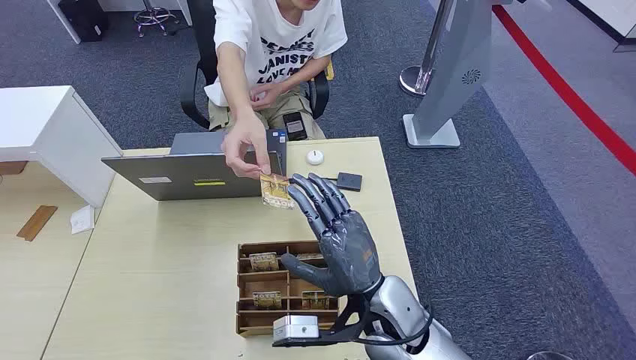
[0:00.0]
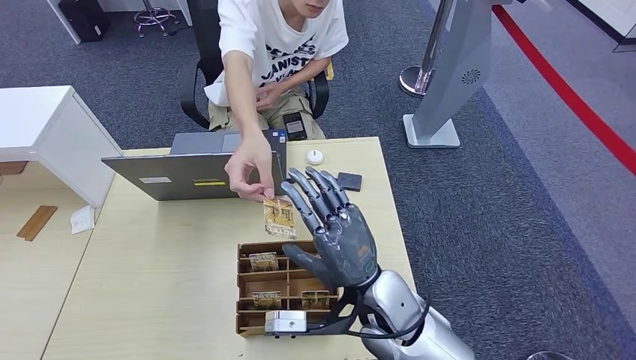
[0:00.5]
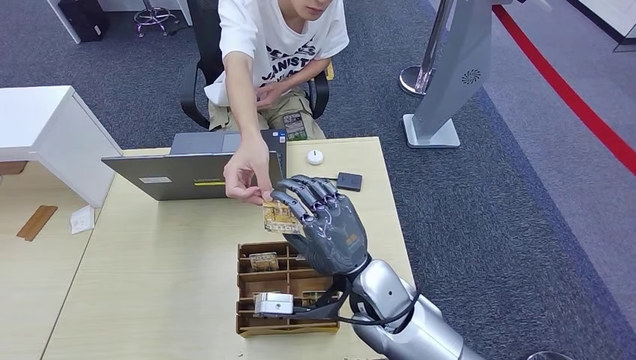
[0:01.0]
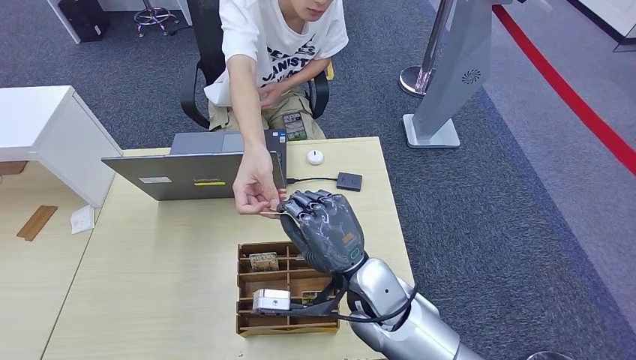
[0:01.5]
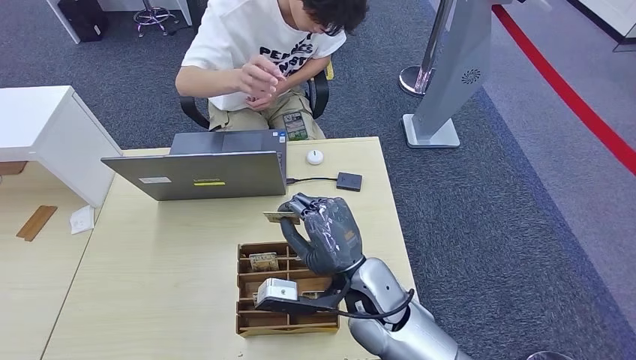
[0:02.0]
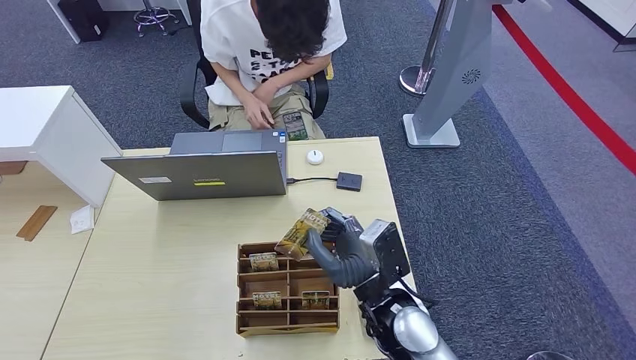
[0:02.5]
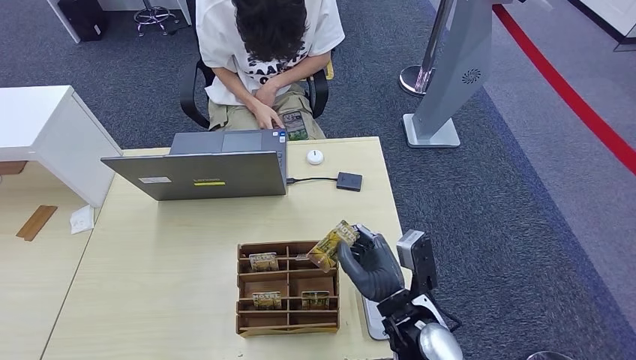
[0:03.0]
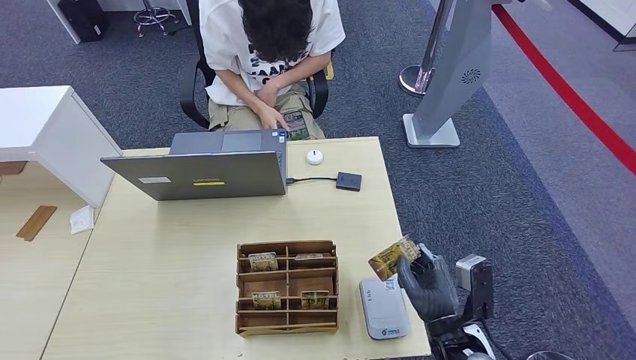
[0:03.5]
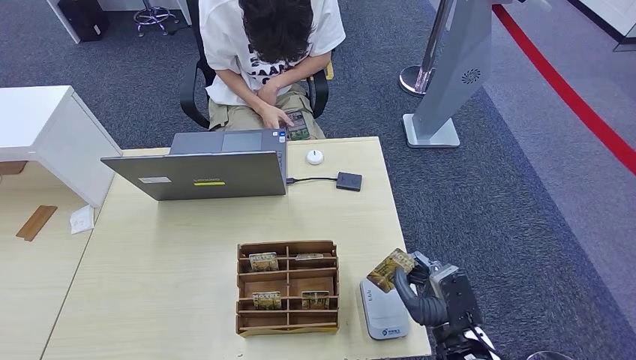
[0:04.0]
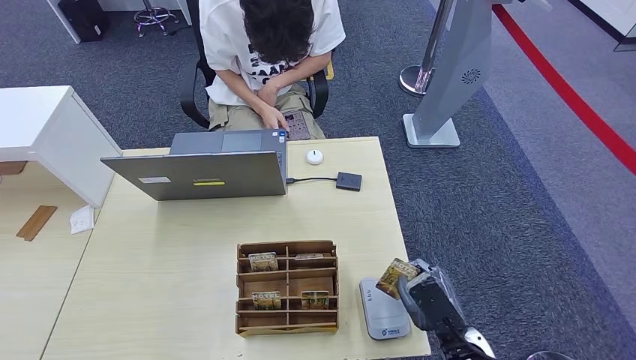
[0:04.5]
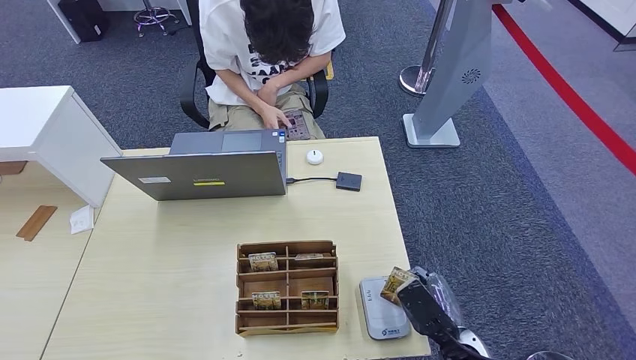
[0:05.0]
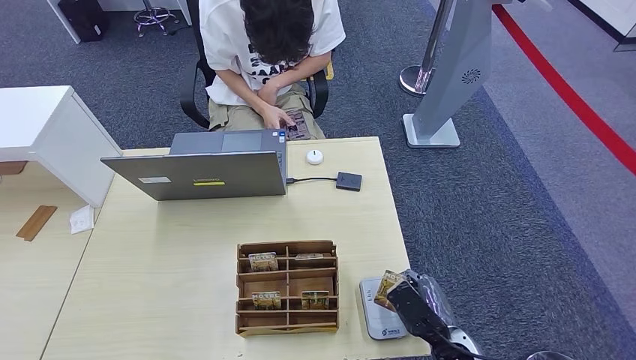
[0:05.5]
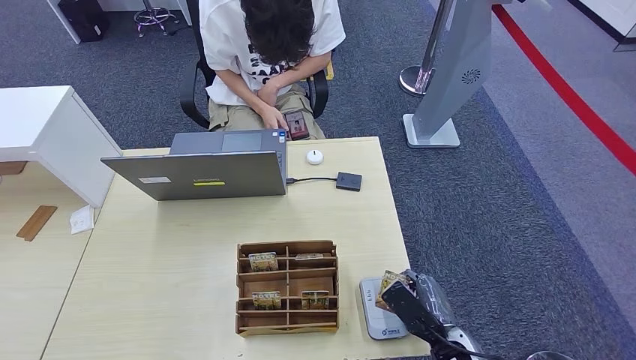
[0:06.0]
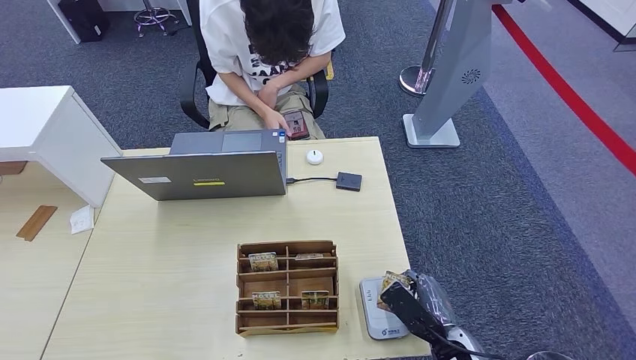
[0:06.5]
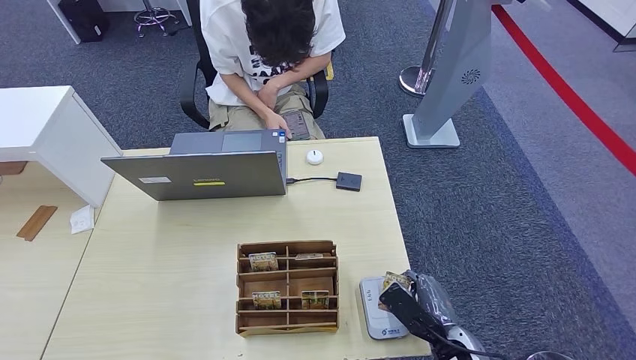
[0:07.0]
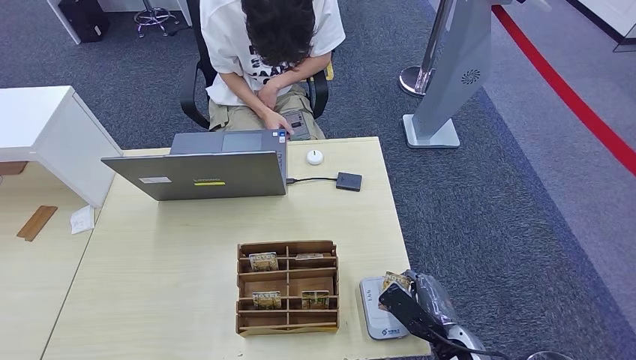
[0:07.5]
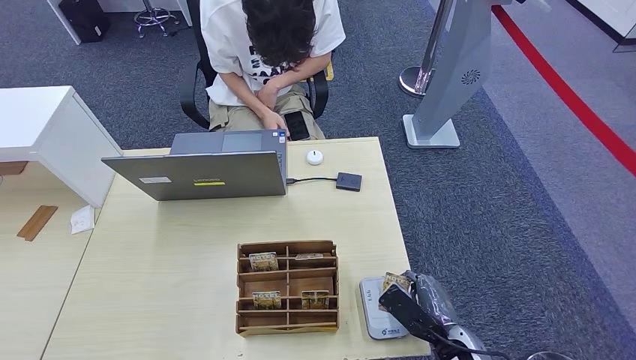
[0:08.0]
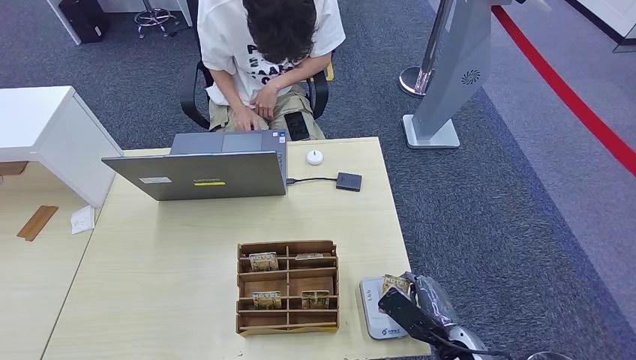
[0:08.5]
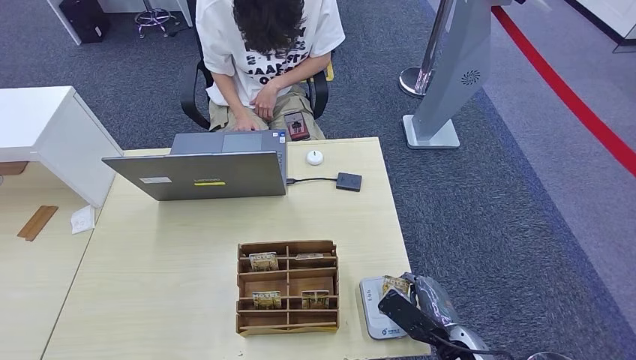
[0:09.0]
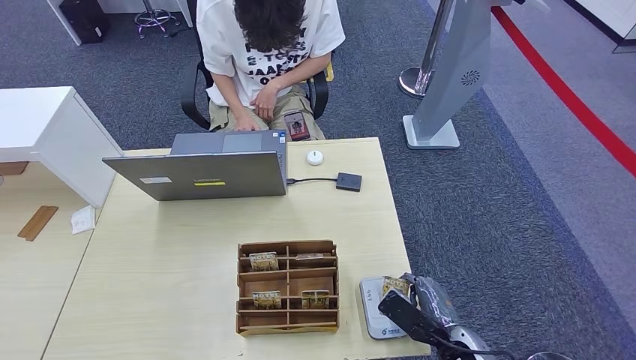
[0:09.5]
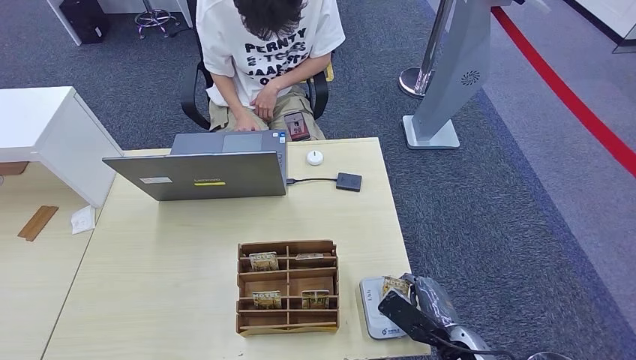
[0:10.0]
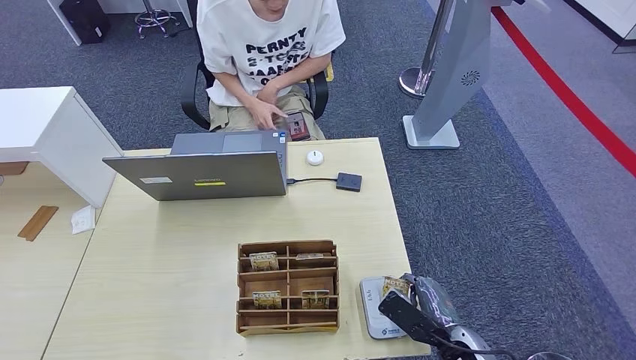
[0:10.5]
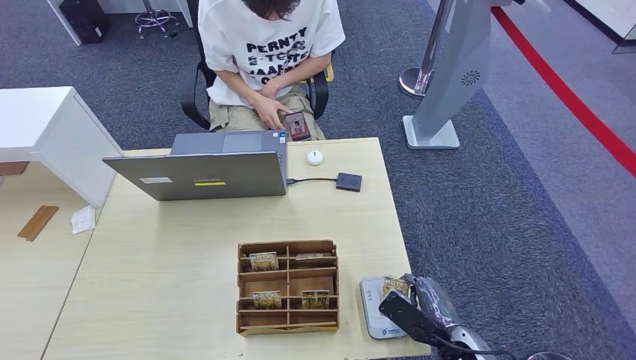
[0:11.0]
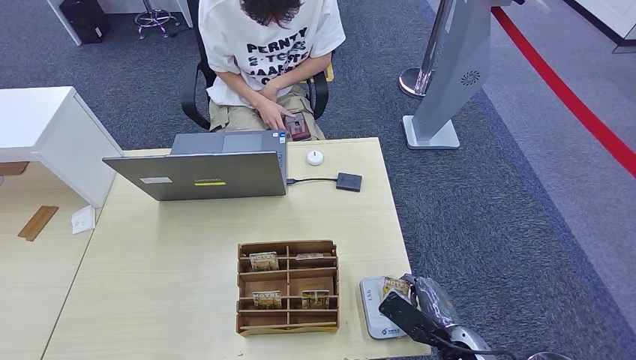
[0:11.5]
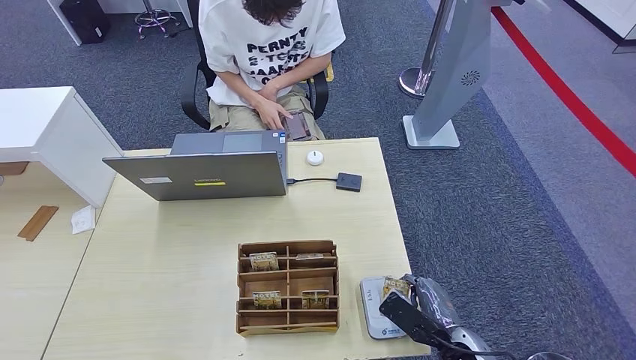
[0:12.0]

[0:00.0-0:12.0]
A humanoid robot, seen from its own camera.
Step, 0:00.0 to 0:01.0: Take the ID card from the person's hand.
Step, 0:01.5 to 0:09.5: Place the ID card on the card reader.
0:02.0 to 0:04.0: The right hand travels to the right, downward and backward by roughly 20 cm.
0:06.0 to 0:08.0: The hands make only small movements.
0:08.0 to 0:10.0: Both hands stay about where they are.
0:10.0 to 0:12.0: Neither hand changes place.

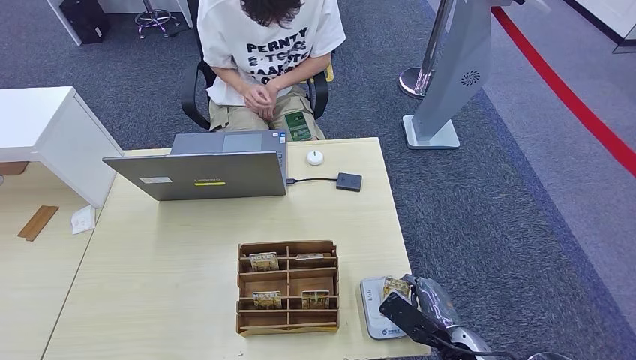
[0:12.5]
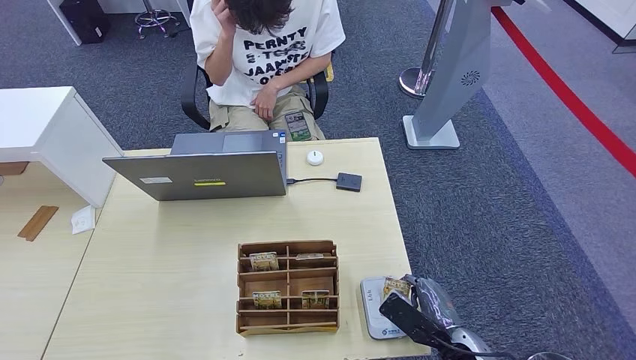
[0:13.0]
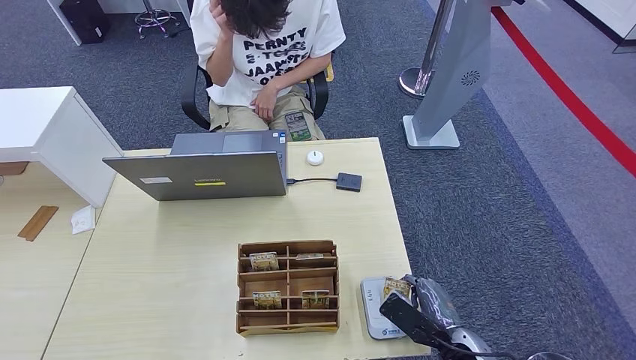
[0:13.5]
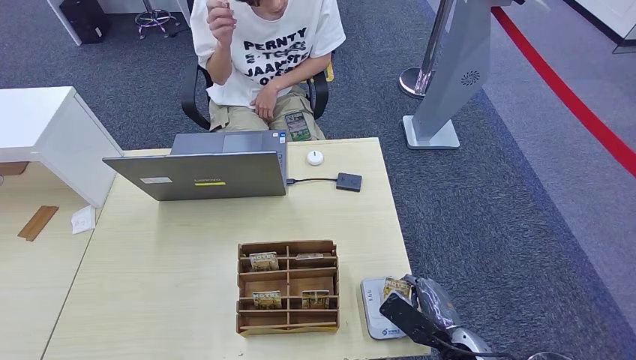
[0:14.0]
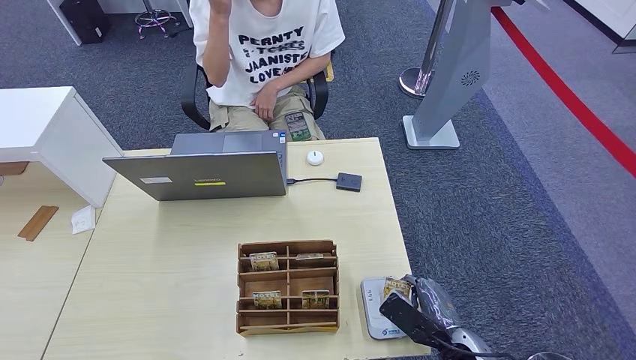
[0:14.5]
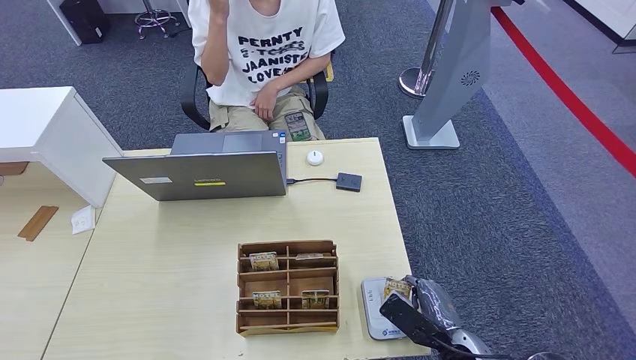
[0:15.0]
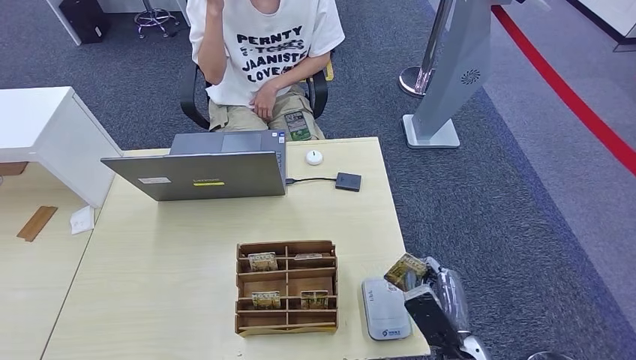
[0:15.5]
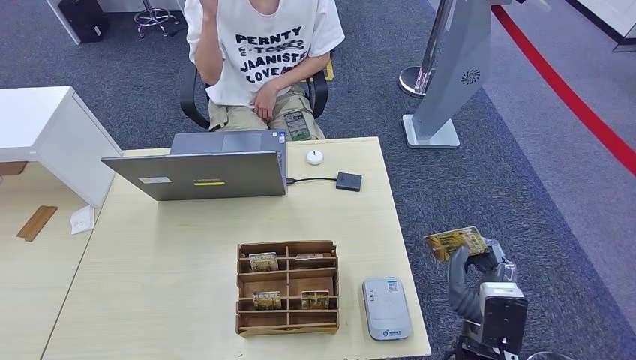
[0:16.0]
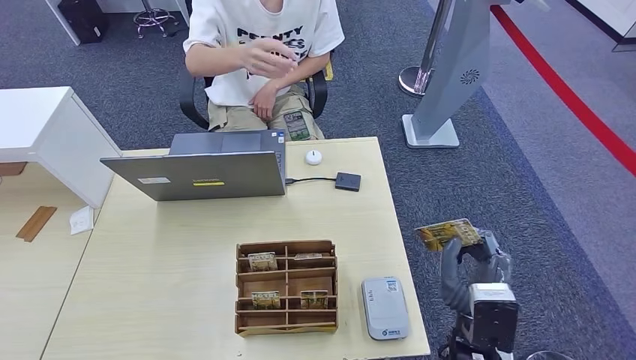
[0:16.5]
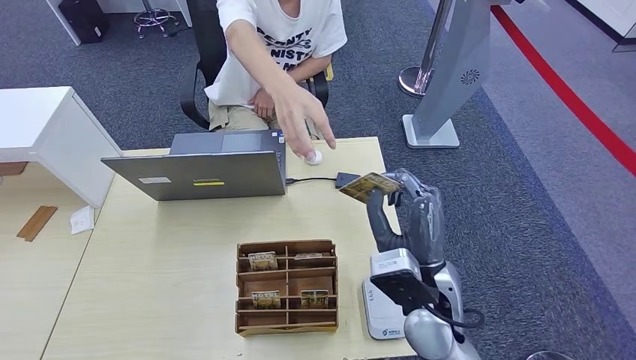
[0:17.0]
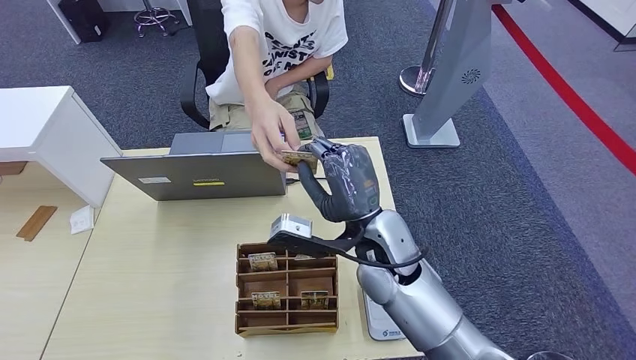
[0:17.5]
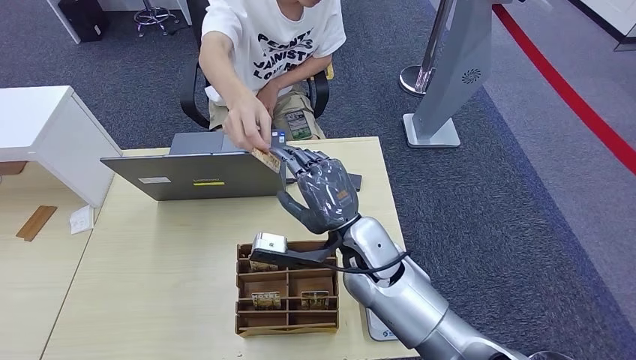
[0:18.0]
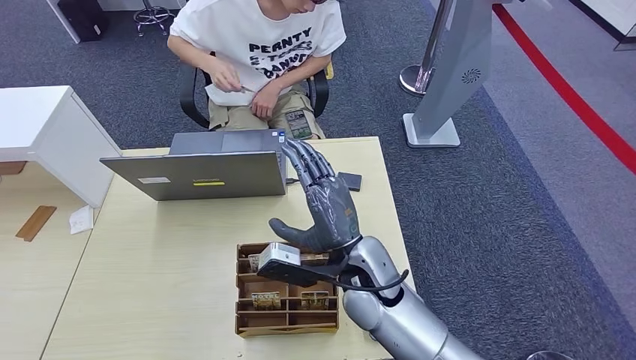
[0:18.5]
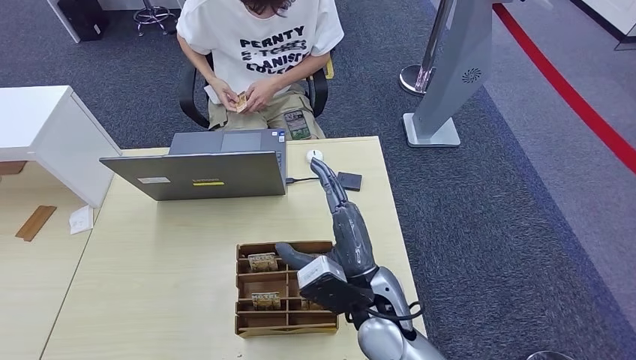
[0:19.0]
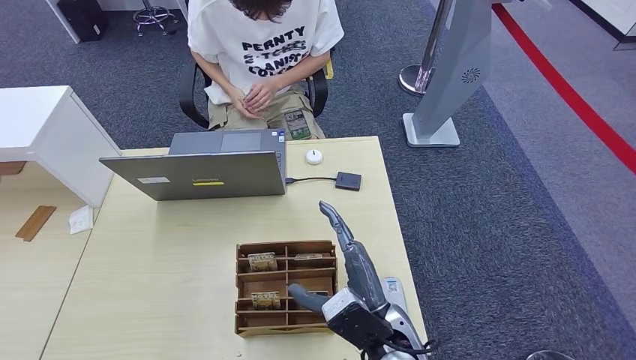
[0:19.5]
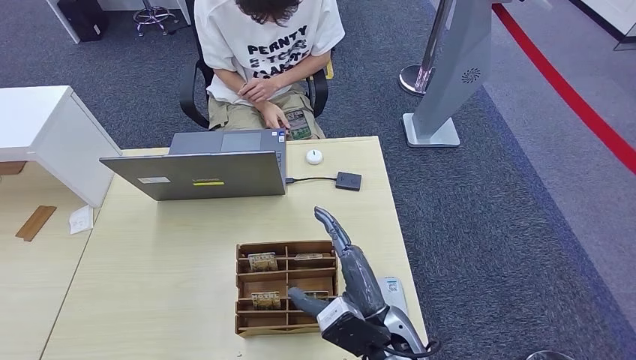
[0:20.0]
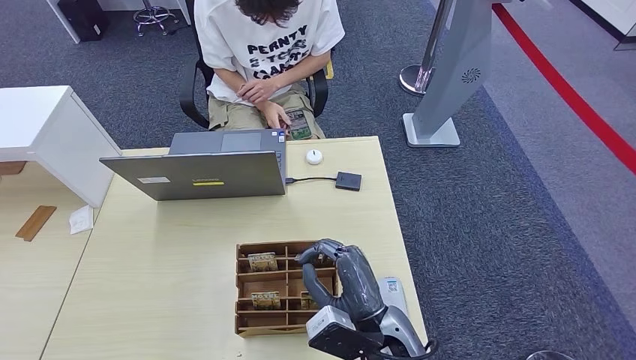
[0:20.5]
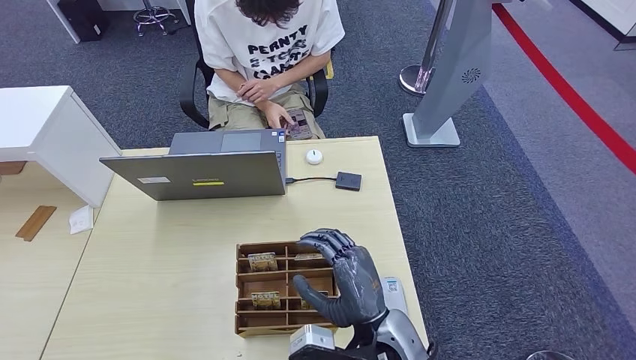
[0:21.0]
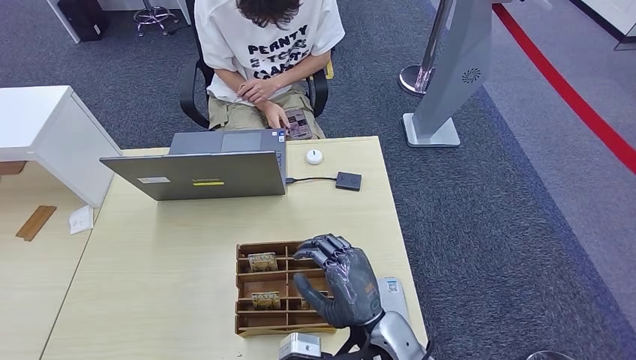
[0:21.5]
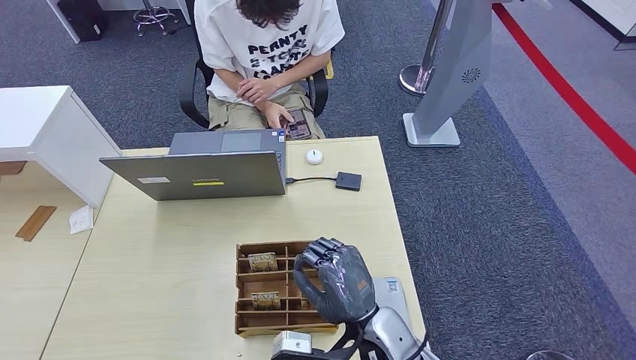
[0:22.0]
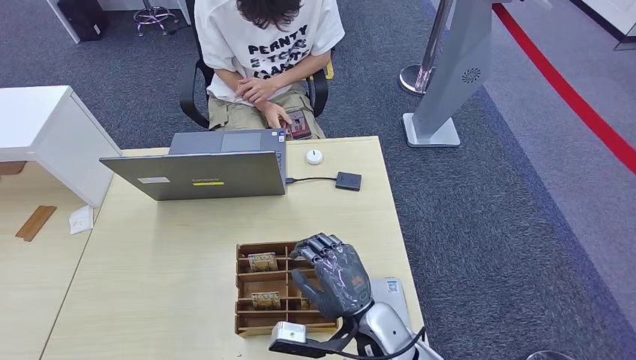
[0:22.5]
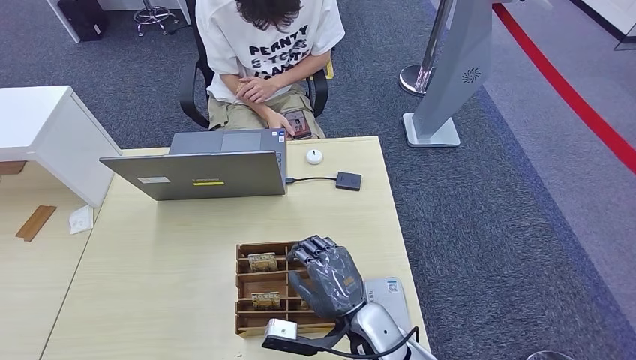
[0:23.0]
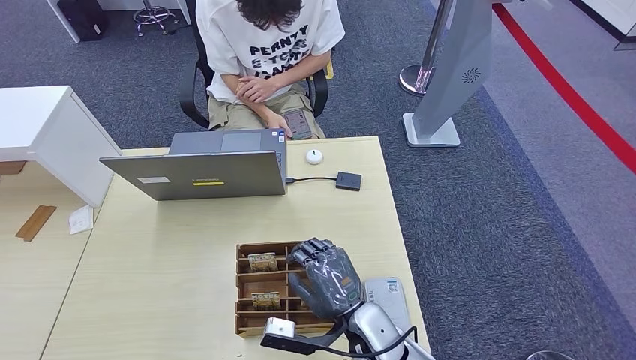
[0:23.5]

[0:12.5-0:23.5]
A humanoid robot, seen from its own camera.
Step, 0:12.5 to 0:18.5: Hand the ID card to the person.
0:12.5 to 0:14.5: Both hands stay put.
0:14.5 to 0:16.0: The right hand goes some 10 cm upward.
0:16.0 to 0:18.0: The right hand is displaced to the left, forward and upward by roughly 25 cm.
0:18.0 to 0:20.0: The right hand shifts about 15 cm backward and downward.
0:21.5 to 0:23.5: The hands move only a little.
